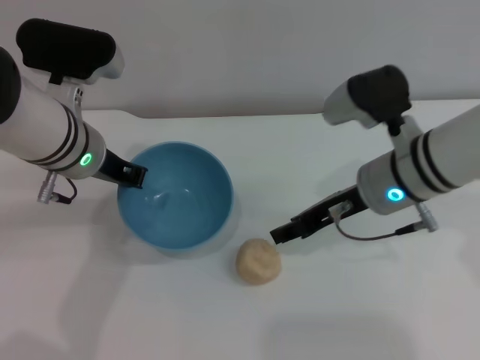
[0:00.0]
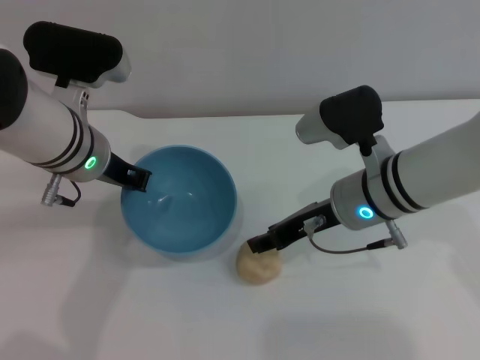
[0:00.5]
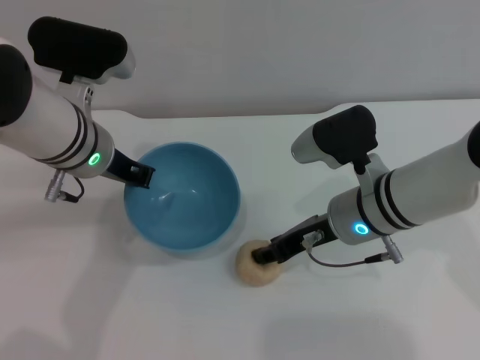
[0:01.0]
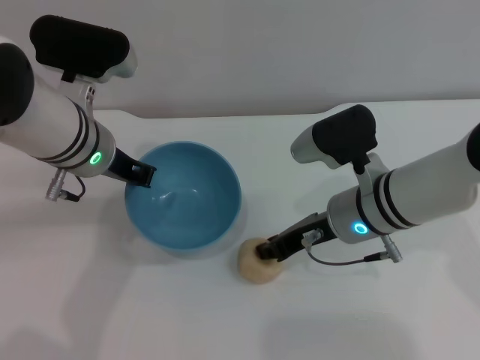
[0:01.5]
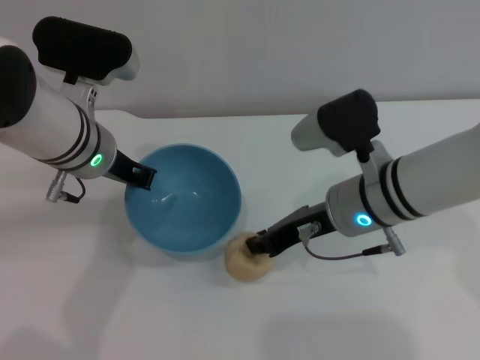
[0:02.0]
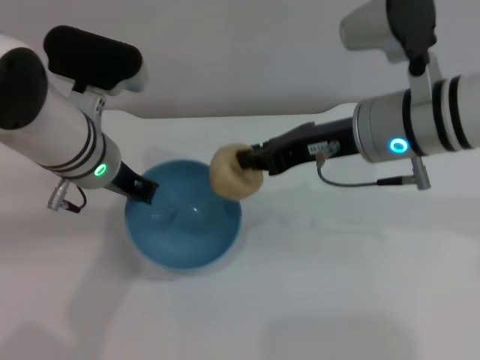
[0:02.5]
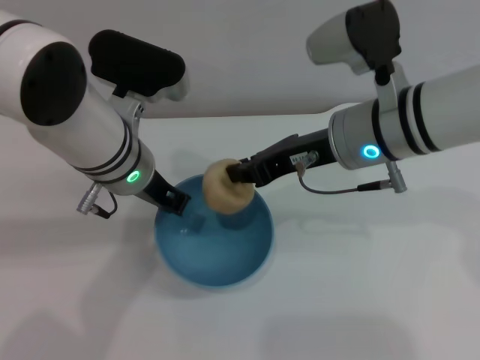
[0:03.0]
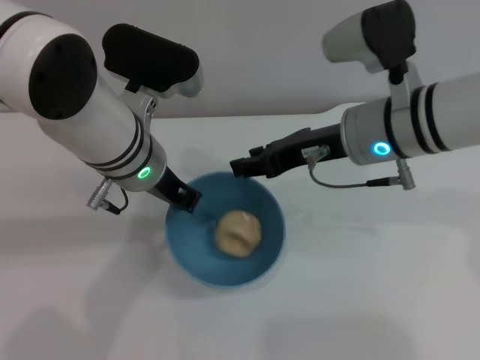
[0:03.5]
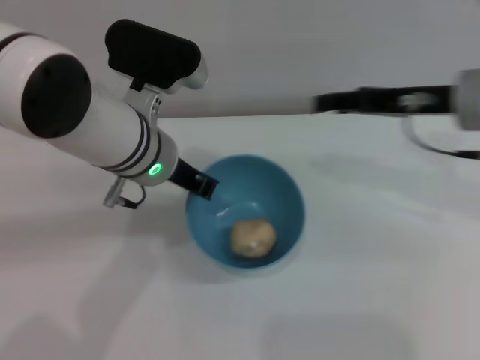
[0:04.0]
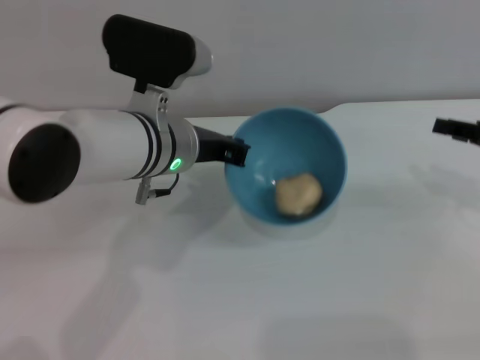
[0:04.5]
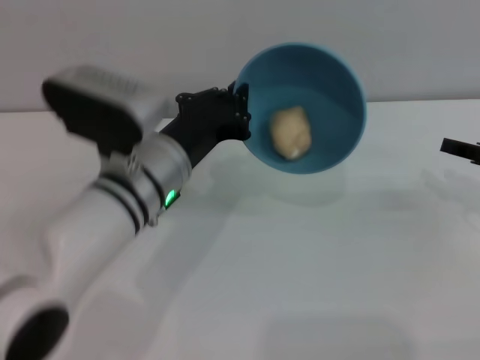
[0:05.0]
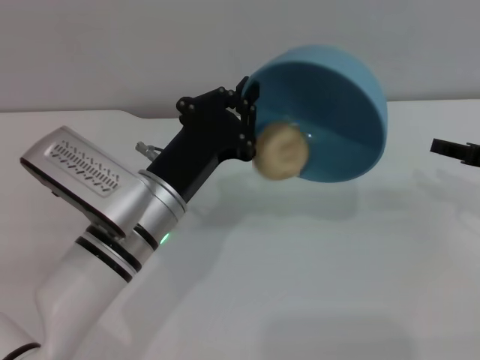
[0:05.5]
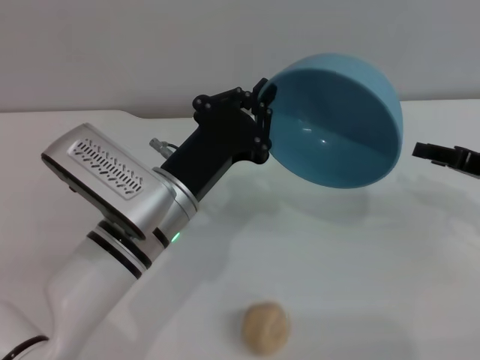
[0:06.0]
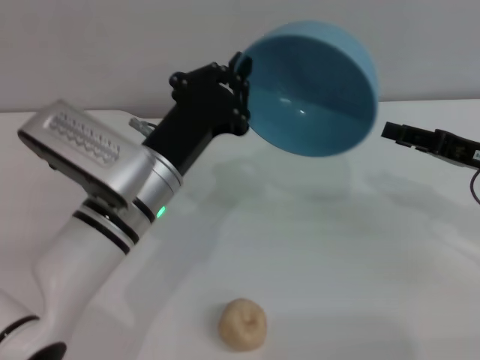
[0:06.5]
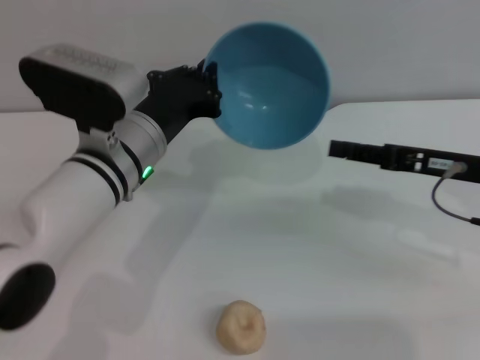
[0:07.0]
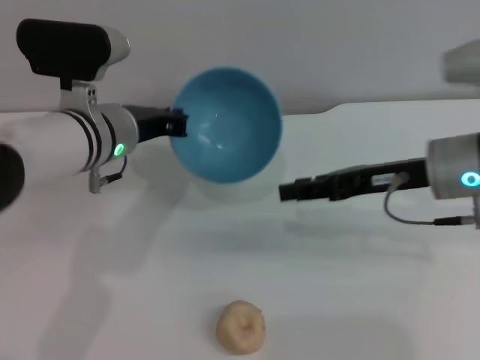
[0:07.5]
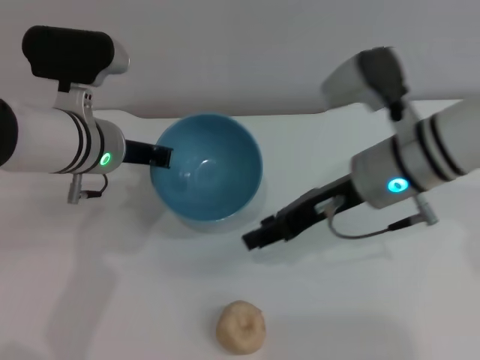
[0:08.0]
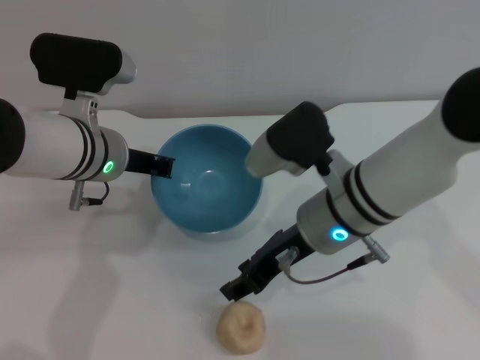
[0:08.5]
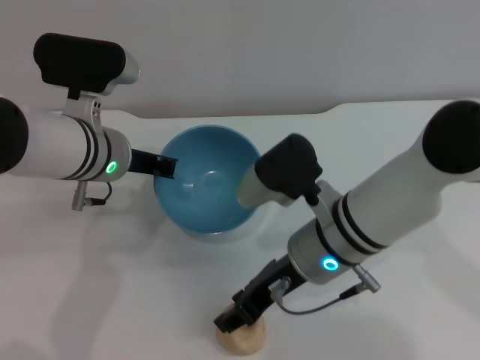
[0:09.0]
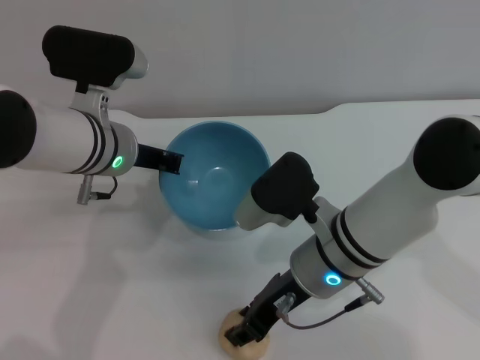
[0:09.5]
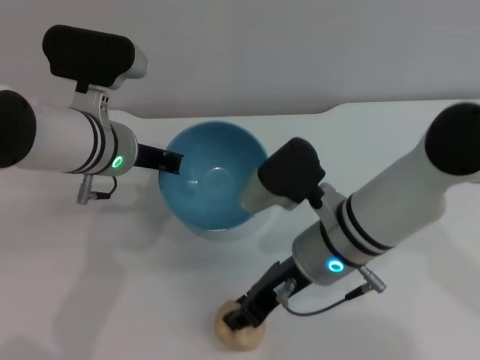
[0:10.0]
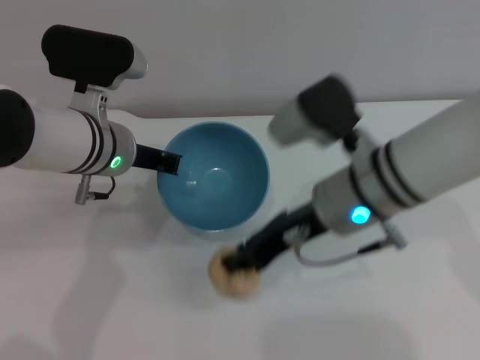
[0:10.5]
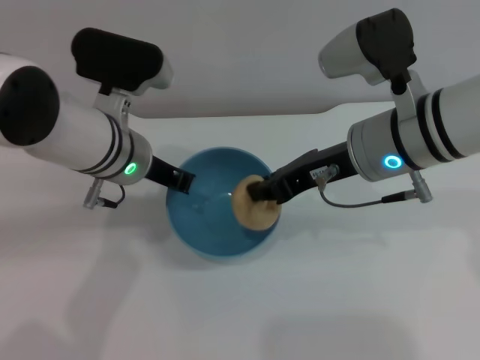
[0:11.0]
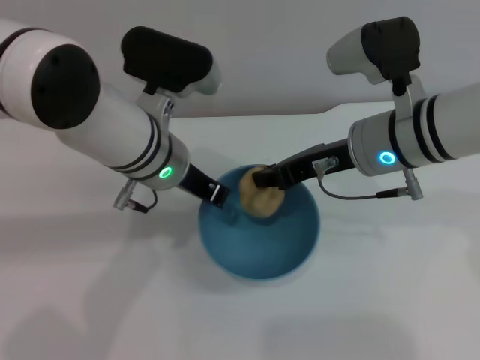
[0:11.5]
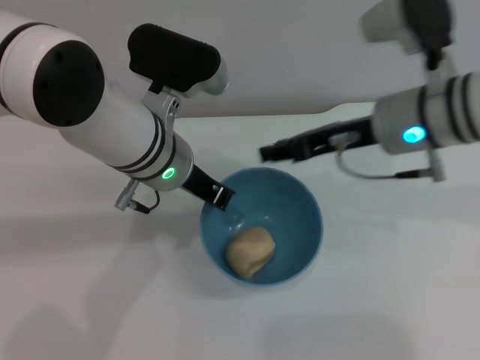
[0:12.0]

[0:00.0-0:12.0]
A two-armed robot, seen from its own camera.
Task of the whole recording: put the egg yolk pastry into the blue bowl and pour it out repeatedly.
Step, 0:00.0 to 0:02.0: Pick up the egg yolk pastry with the right gripper.
Step, 0:02.5 to 0:04.5: Place the egg yolk pastry into the bowl.
Step, 0:05.0 to 0:07.0: Pour the egg yolk pastry out of bowl.
Step, 0:07.5 to 0:10.0: Pick up the egg yolk pastry with the right gripper.
Step, 0:10.5 to 0:11.5: Place the egg yolk pastry into the bowl.
0:00.0 to 0:02.0: The right gripper closes up.
0:02.0 to 0:04.0: The left gripper shifts about 5 cm to the right. Meanwhile the right gripper moves to the right and upward, approximately 15 cm, and opens its fingers.
0:04.0 to 0:06.0: The right gripper is displaced to the right and downward by roughly 10 cm. The left gripper heads backward and downward, covering approximately 10 cm.
0:06.0 to 0:08.0: The left gripper moves forward and to the left, some 10 cm; the right gripper shifts about 20 cm to the left.
0:08.0 to 0:10.0: The right gripper heads to the left, covering about 5 cm, and closes its fingers.
0:10.0 to 0:12.0: The left gripper travels to the right by roughly 5 cm. Meanwhile the right gripper moves to the right, upward and forward, approximately 15 cm, and closes and opens again.

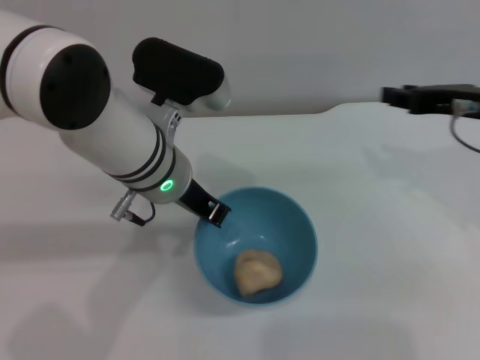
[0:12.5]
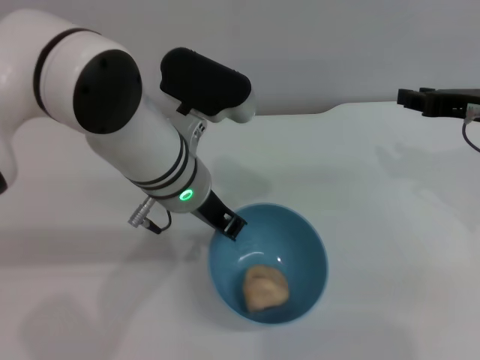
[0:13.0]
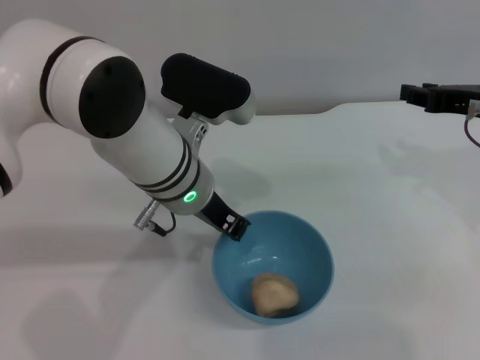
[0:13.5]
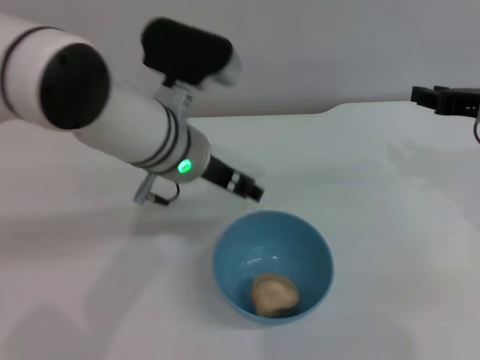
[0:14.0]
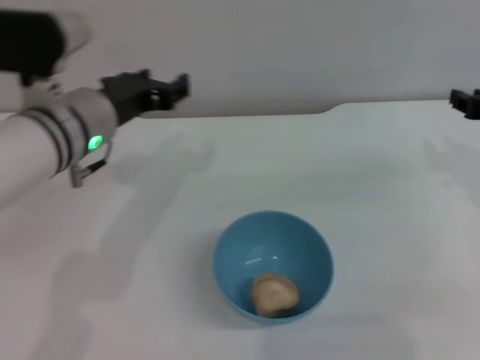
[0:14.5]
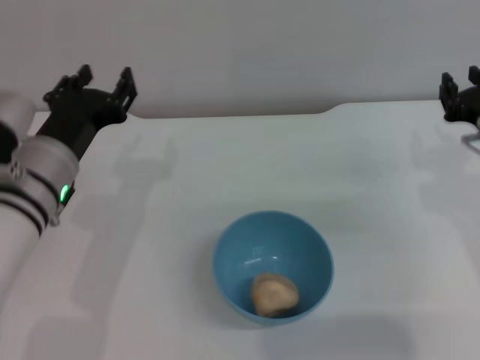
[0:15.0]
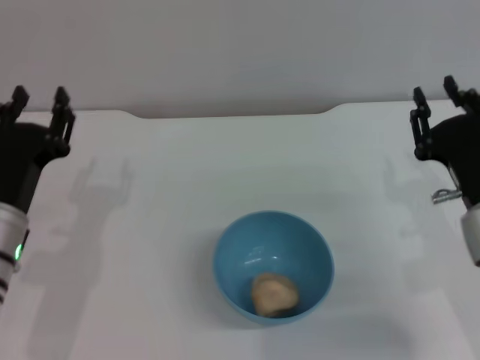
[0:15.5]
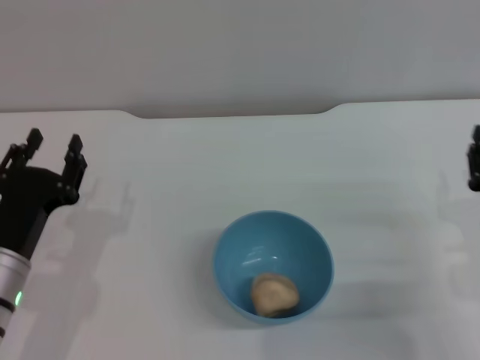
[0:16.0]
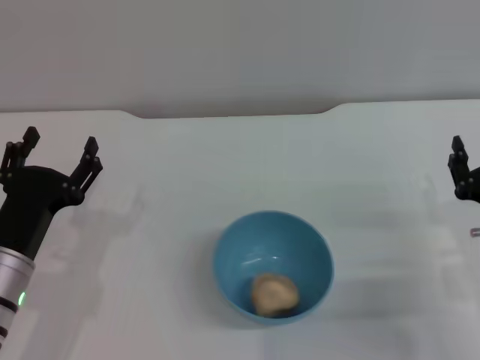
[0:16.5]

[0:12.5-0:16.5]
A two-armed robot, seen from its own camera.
Task of the whole recording: put the egg yolk pastry into the blue bowl and pour it out repeatedly.
Step, 0:12.5 to 0:14.0: Place the bowl on the table.
0:12.5 to 0:14.5: The left gripper travels to the left by about 10 cm, and opens. Meanwhile the right gripper moves roughly 5 cm.
0:14.5 to 0:16.5: The right gripper shifts approximately 15 cm downward and backward, while the left gripper moves downward, backward and to the left, roughly 20 cm.
